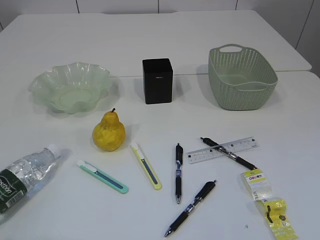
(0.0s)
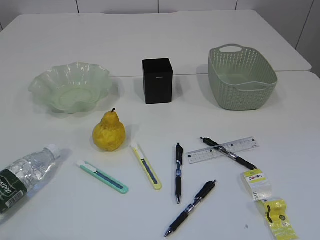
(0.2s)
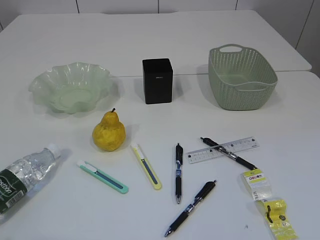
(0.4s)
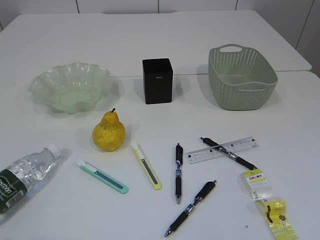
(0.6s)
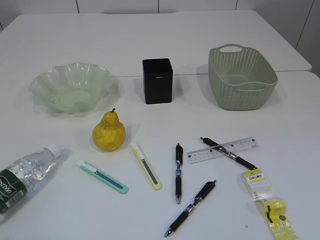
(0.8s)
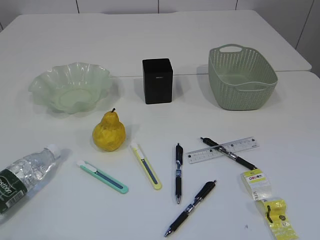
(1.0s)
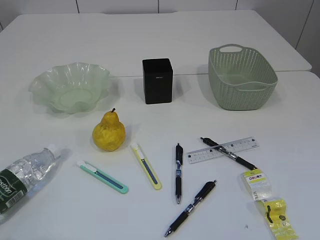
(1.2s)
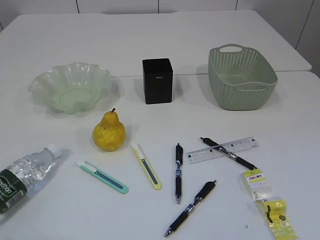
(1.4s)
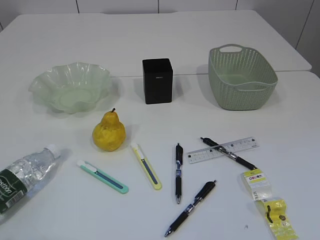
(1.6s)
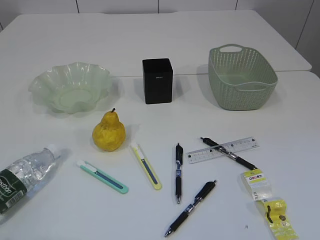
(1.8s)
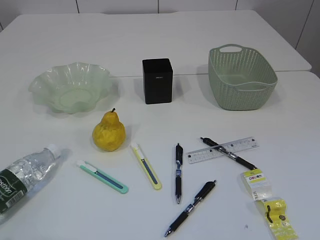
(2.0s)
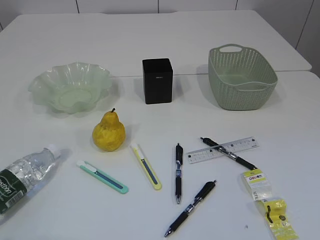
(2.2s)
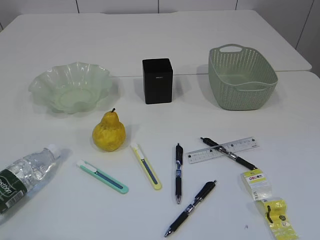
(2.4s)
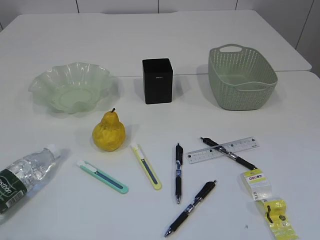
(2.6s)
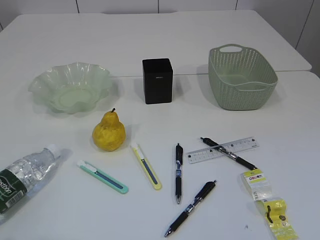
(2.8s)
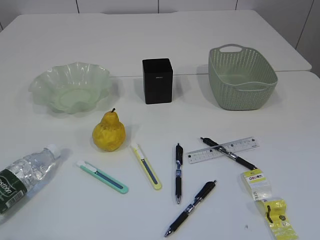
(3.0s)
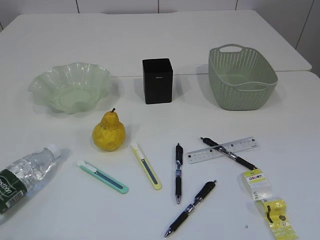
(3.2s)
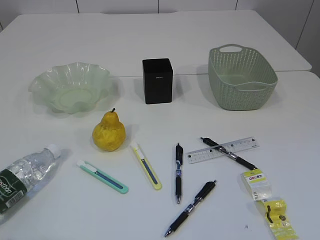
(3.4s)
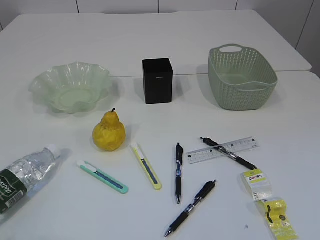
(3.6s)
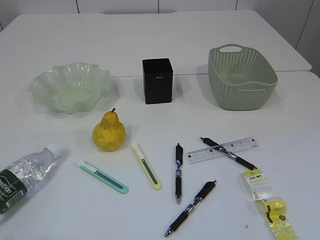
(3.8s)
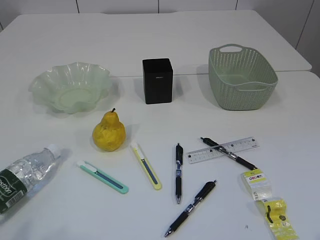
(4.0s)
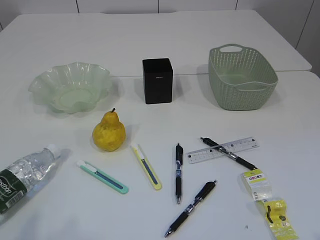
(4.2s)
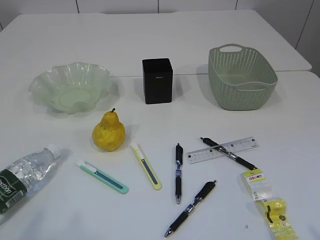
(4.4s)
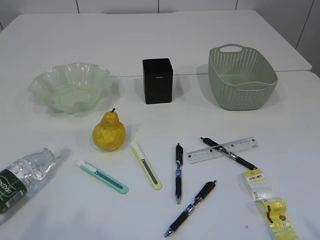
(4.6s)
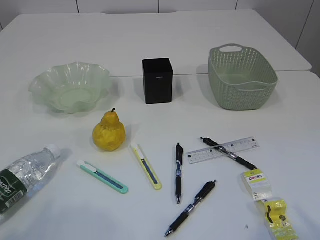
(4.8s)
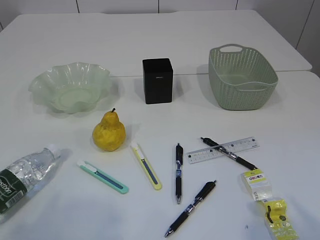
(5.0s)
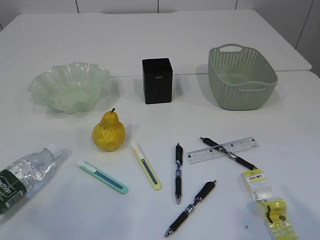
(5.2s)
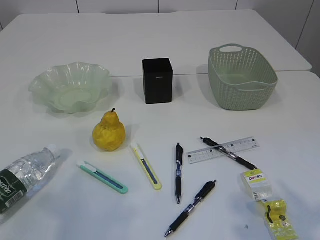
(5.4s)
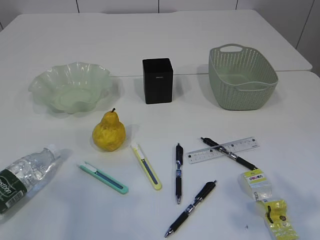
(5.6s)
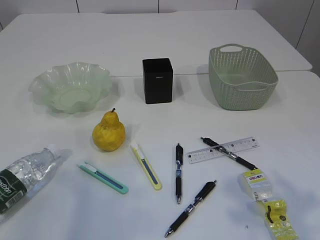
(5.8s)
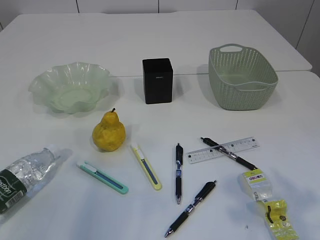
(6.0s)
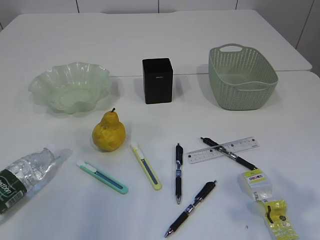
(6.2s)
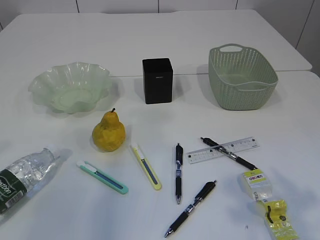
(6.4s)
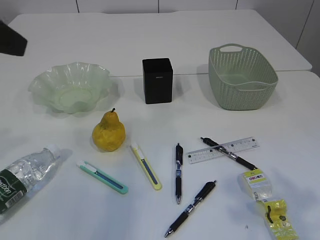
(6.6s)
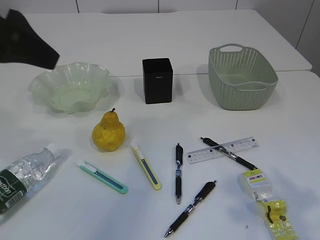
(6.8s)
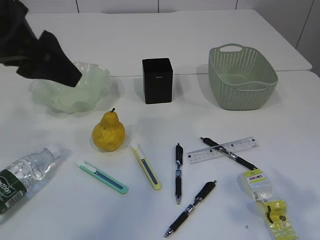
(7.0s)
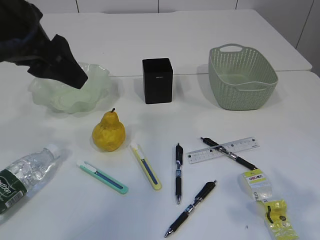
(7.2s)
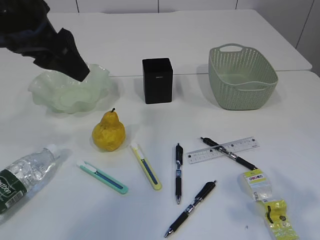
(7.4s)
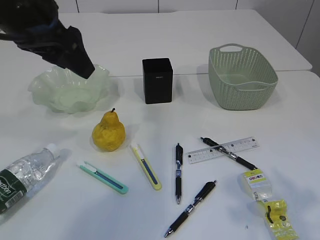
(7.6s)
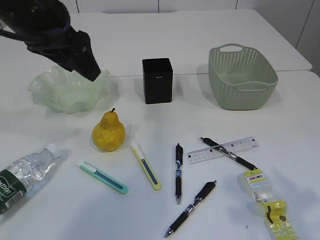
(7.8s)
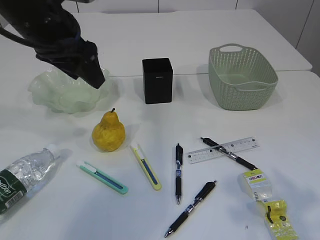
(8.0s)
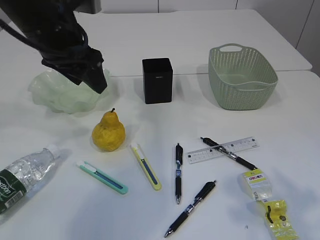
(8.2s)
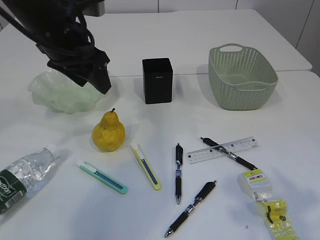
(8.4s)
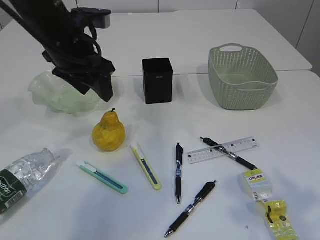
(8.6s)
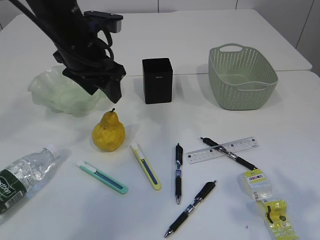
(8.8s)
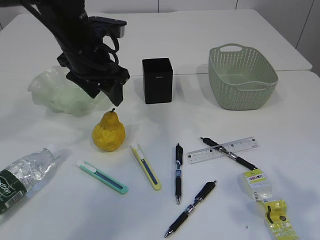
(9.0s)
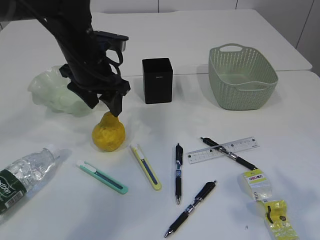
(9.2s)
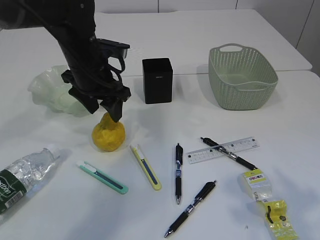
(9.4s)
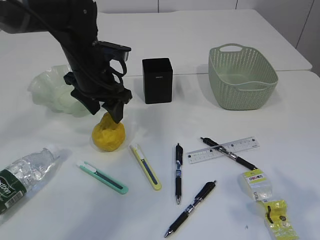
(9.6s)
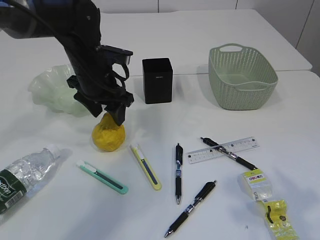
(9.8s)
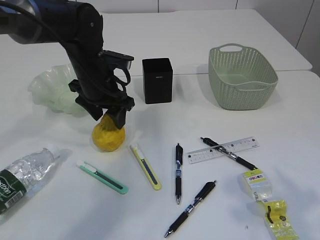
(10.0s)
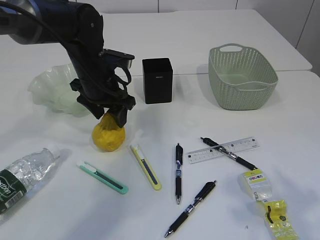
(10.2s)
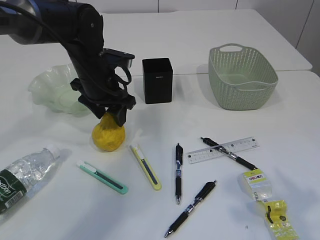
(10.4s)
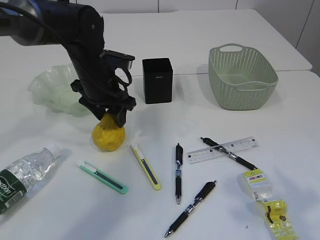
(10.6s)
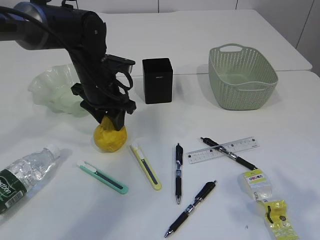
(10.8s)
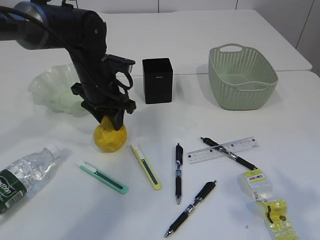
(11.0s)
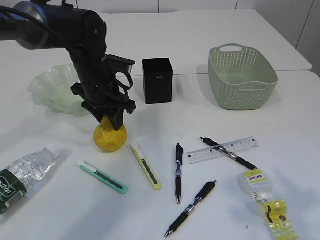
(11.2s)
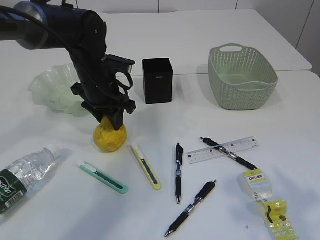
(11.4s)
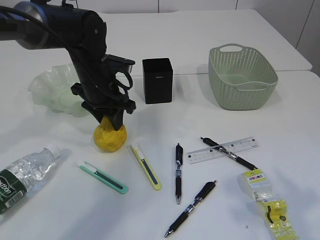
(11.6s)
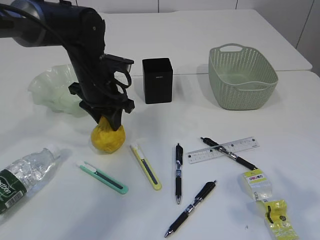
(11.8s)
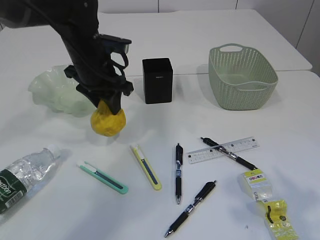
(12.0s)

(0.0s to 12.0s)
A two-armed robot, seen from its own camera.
1.6s - 3.0s: Both grippers stay about where they are.
4.4s - 6.0s: Both grippers travel together forward, about 15 cm.
6.0s - 7.6s: The left gripper heads forward and to the right, covering roughly 20 cm.
7.6s - 9.0s: The left gripper goes about 10 cm downward and forward.
9.0s - 10.4s: The left gripper moves downward, about 5 cm.
10.4s - 12.0s: The grippers make only small movements.

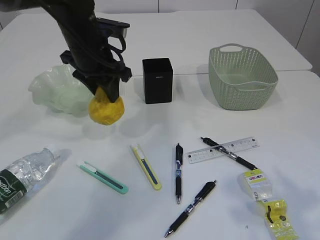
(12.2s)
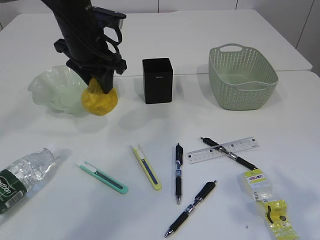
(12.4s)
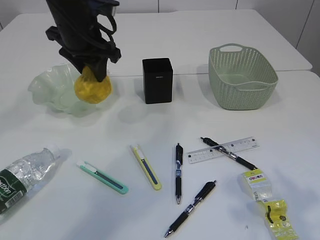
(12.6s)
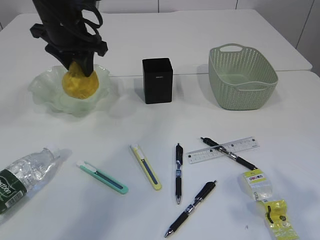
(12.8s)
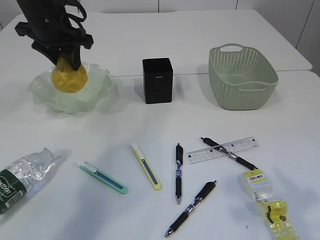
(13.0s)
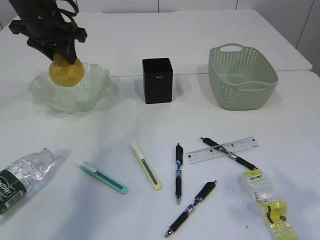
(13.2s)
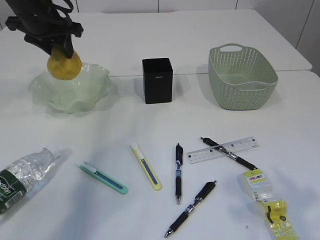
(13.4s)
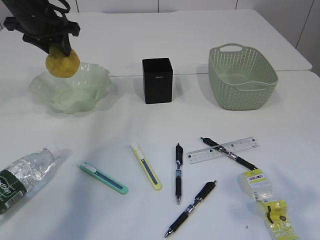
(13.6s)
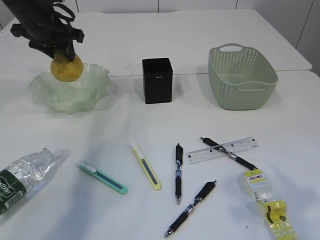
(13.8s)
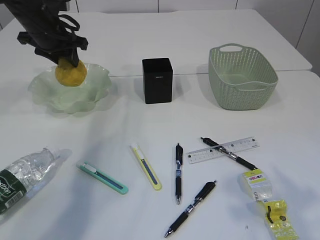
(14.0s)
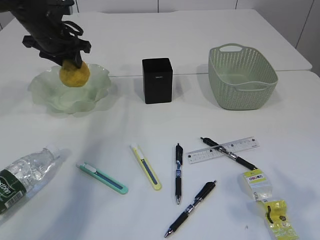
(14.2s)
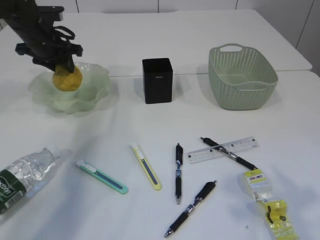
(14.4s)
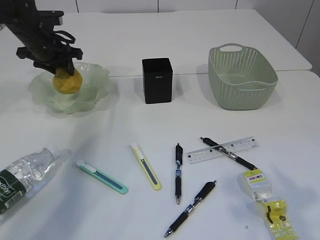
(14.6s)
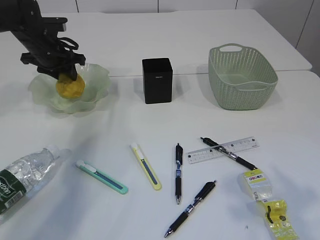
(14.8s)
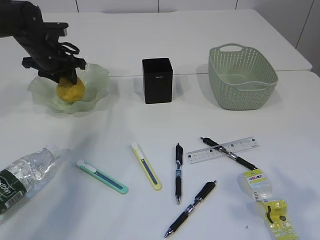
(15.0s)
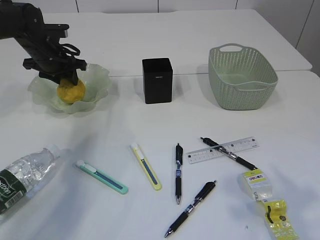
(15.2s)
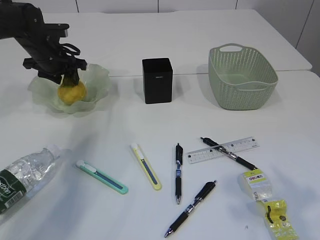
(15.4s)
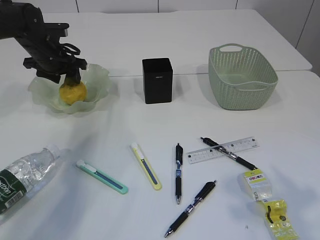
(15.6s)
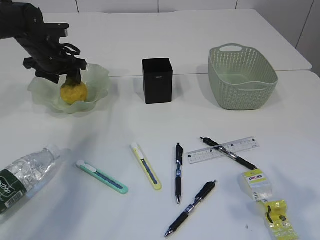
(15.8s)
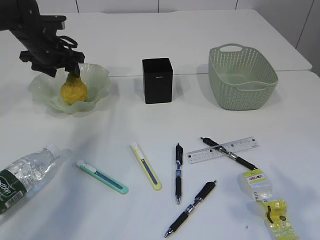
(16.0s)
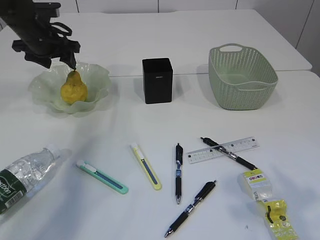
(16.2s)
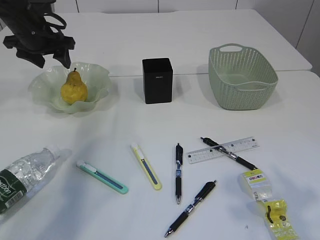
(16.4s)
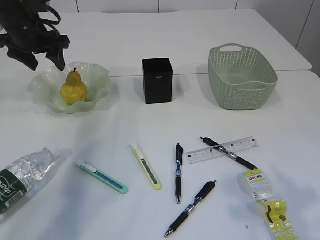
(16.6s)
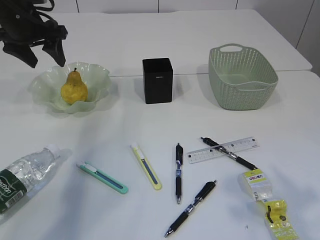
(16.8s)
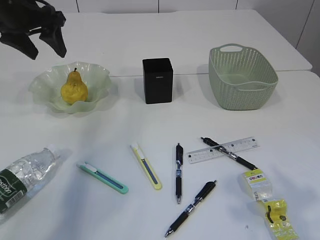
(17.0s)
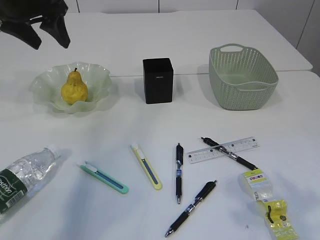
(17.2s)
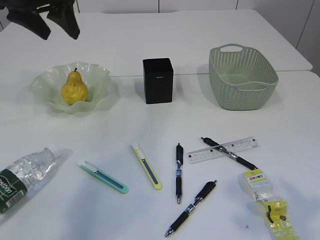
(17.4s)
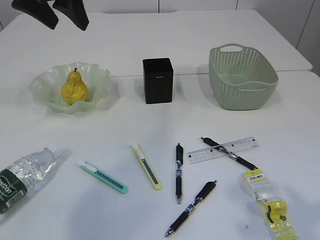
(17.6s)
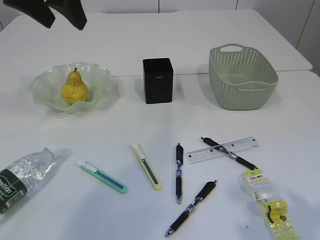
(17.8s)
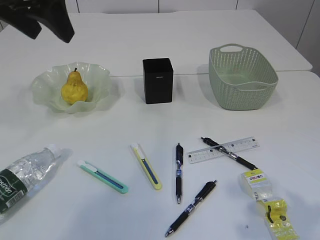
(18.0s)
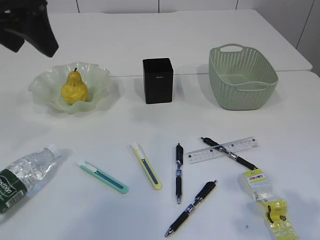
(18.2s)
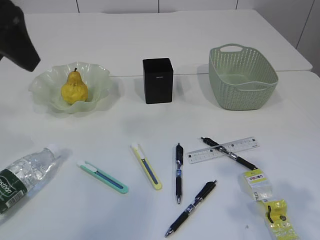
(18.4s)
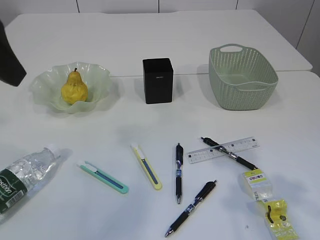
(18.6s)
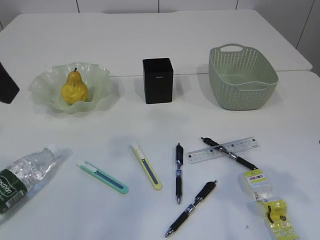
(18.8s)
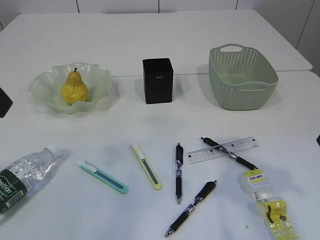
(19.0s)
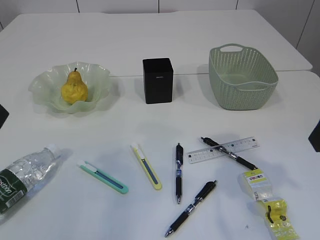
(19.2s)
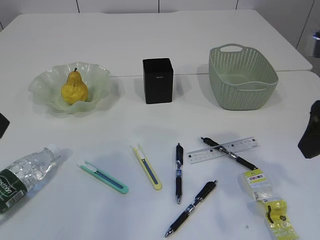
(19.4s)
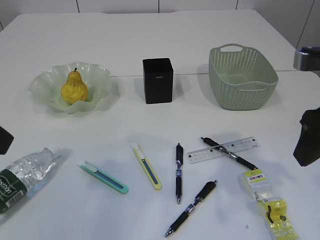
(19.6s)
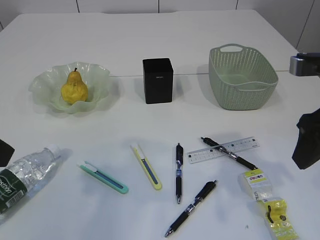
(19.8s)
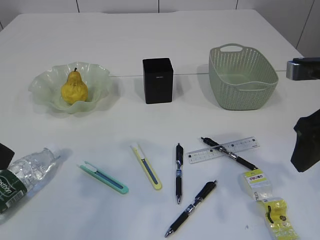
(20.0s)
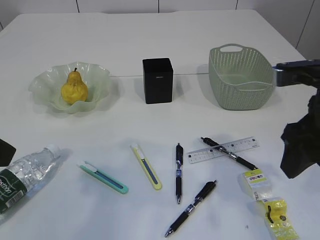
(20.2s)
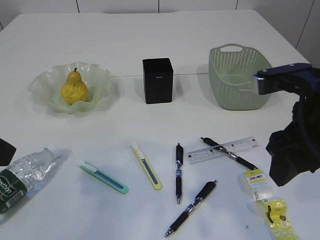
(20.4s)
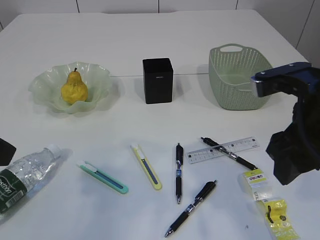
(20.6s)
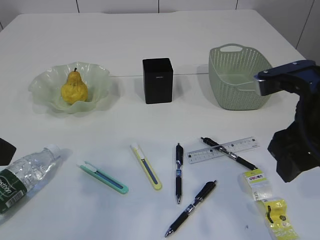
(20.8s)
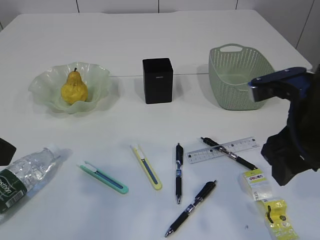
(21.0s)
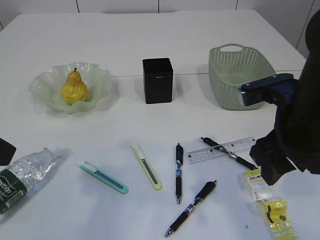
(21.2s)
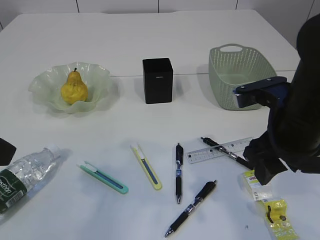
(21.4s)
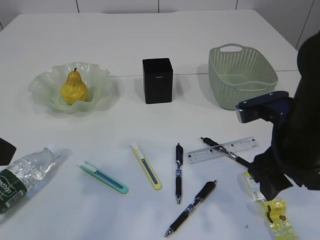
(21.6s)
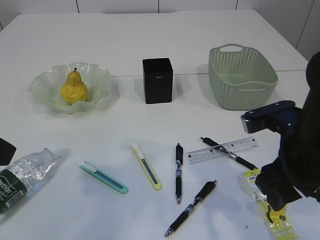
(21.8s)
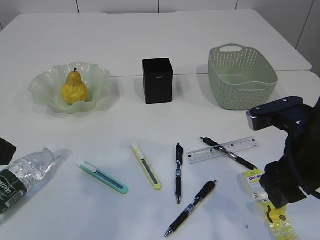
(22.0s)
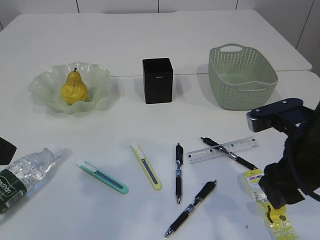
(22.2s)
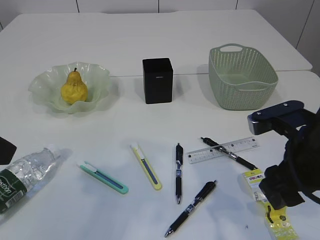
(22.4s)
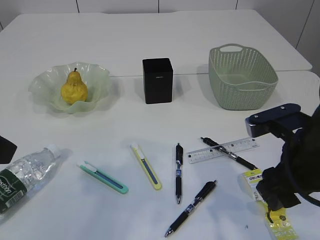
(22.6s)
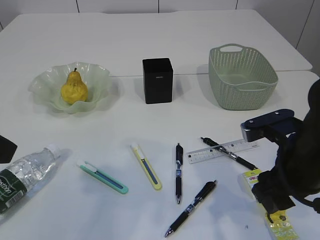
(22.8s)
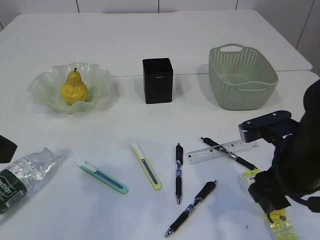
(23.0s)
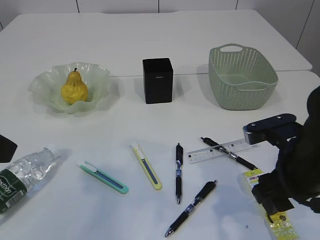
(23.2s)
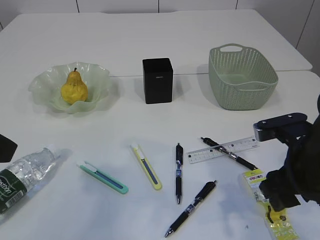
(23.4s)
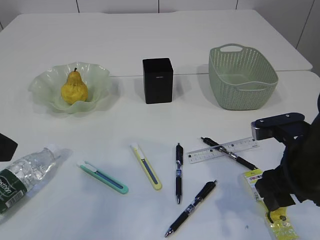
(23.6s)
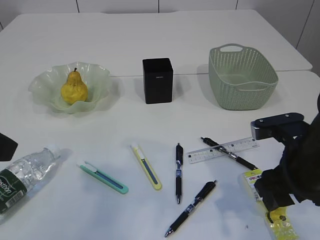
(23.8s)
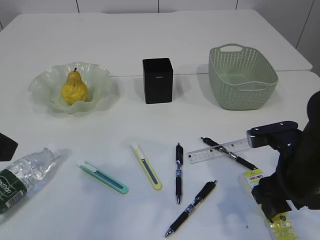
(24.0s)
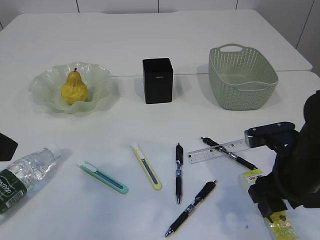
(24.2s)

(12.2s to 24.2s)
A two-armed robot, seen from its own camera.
Step, 13.0s - 16.6s: Place the pear in the plate.
12.2s - 13.8s: The left gripper goes about 15 cm to the left and forward.
13.8s - 15.2s: The left gripper goes some 10 cm downward.
15.2s - 16.6s: The left gripper is displaced upward by some 10 cm, and opens.
16.6s - 18.2s: The left gripper travels backward and upward by some 20 cm.
18.2s - 19.8s: The left gripper shifts some 15 cm backward and downward. Meanwhile the right gripper shifts about 10 cm forward.
19.8s - 21.2s: The right gripper heads to the left, covering approximately 5 cm.
21.2s - 22.6s: The grippers stay close to where they were, moving slightly.
22.6s - 24.2s: The right gripper changes place by some 5 cm.
